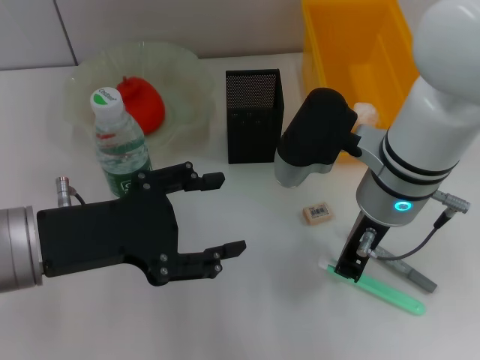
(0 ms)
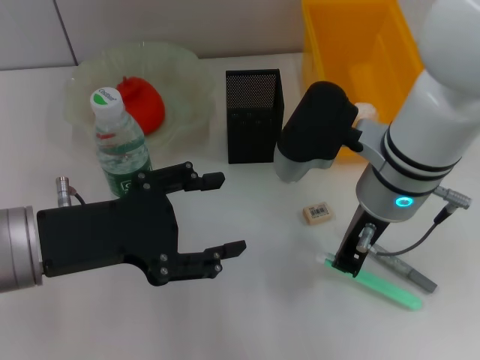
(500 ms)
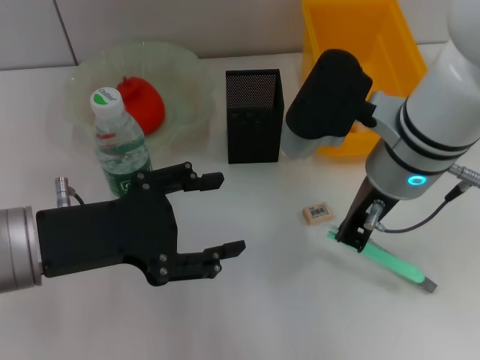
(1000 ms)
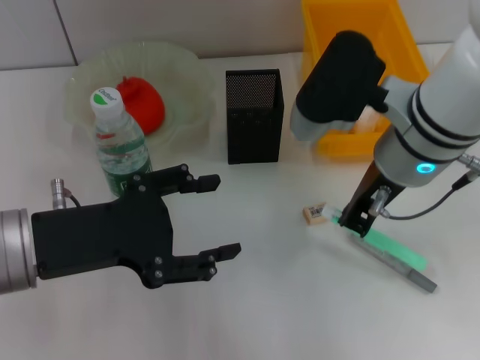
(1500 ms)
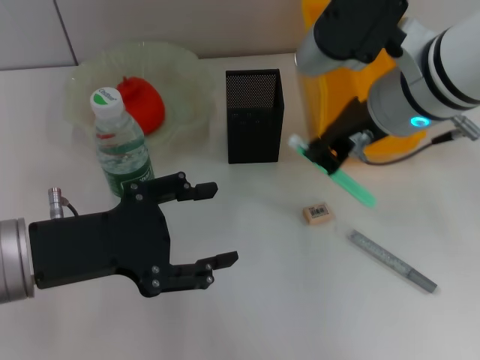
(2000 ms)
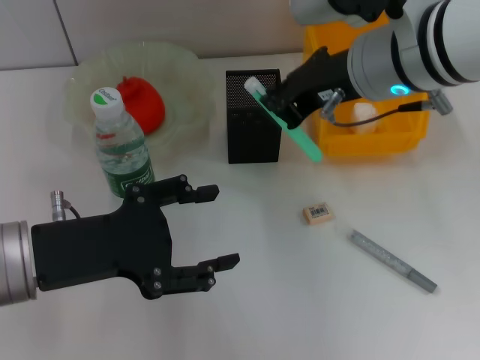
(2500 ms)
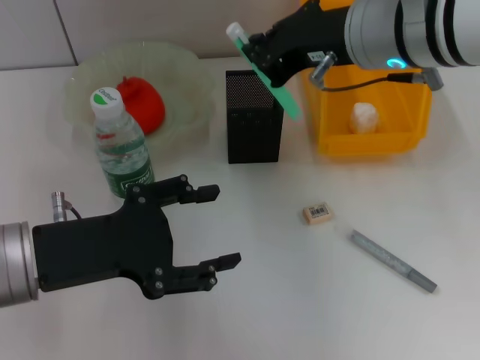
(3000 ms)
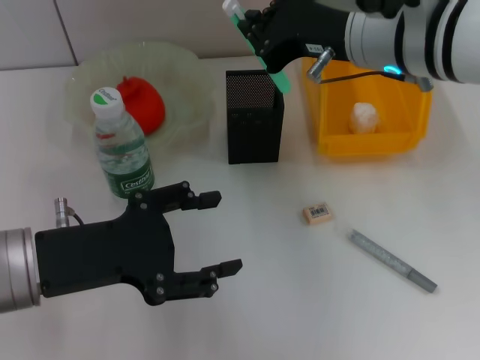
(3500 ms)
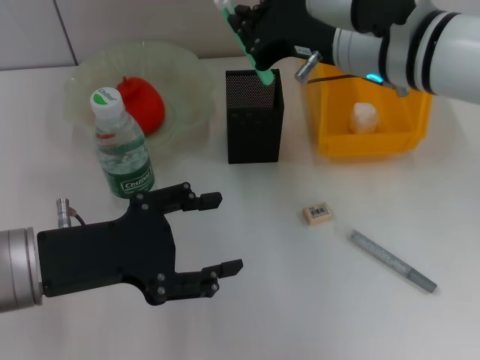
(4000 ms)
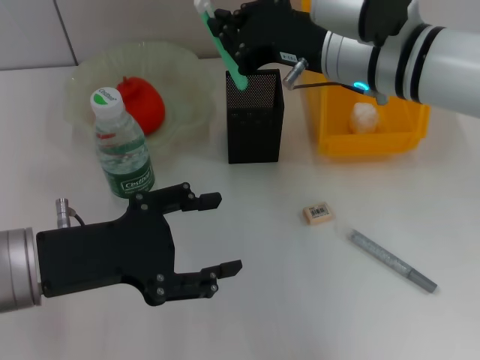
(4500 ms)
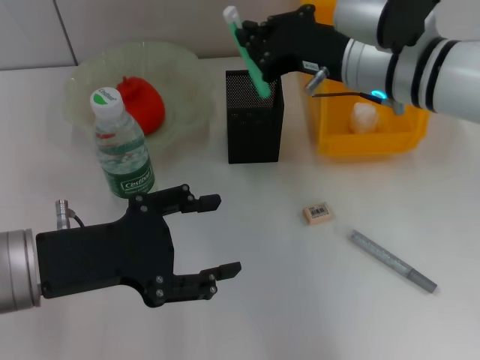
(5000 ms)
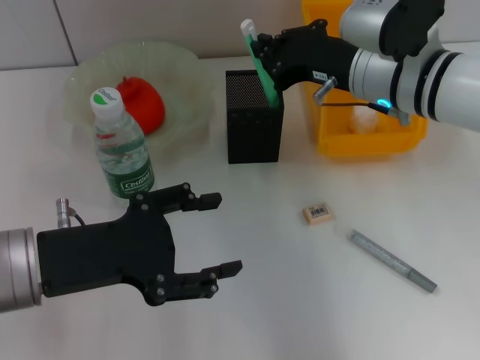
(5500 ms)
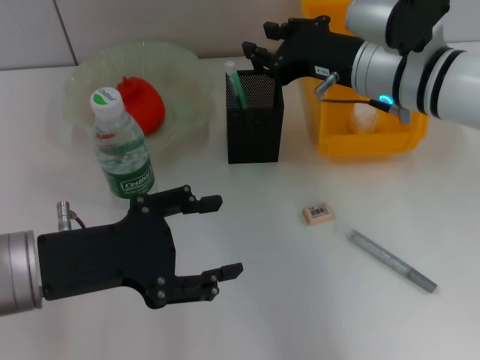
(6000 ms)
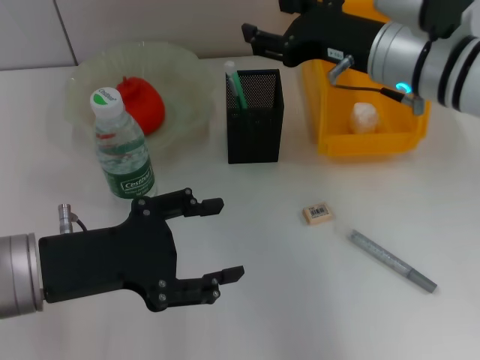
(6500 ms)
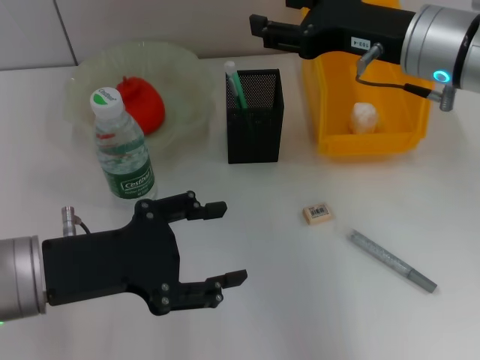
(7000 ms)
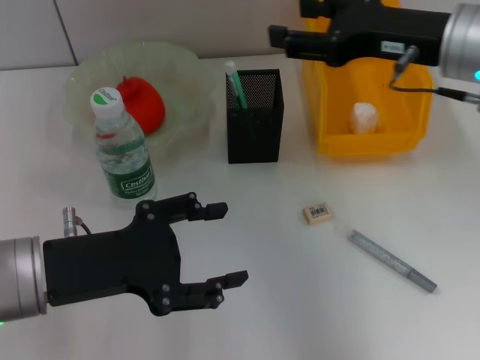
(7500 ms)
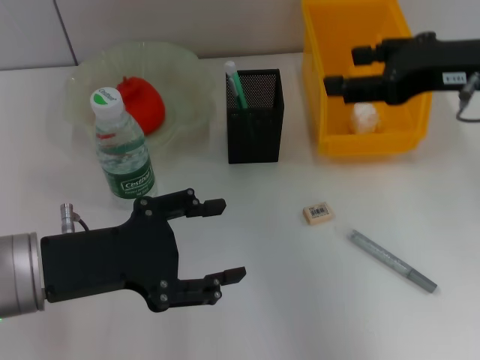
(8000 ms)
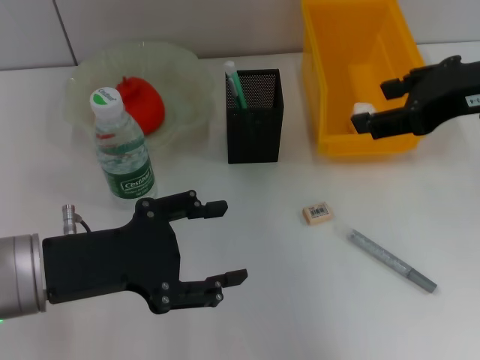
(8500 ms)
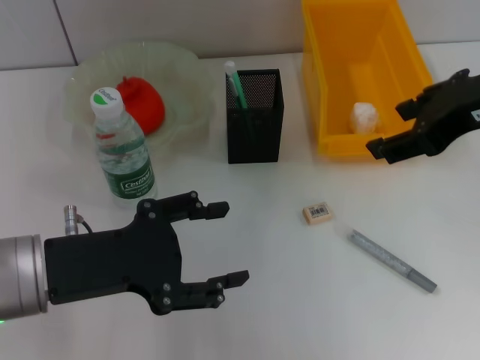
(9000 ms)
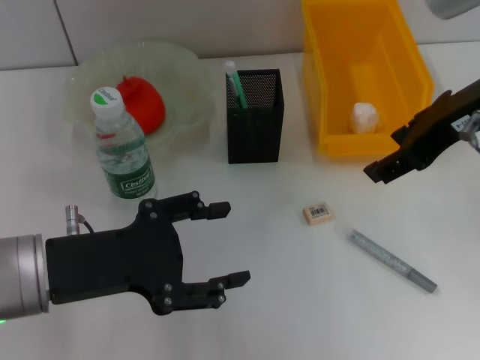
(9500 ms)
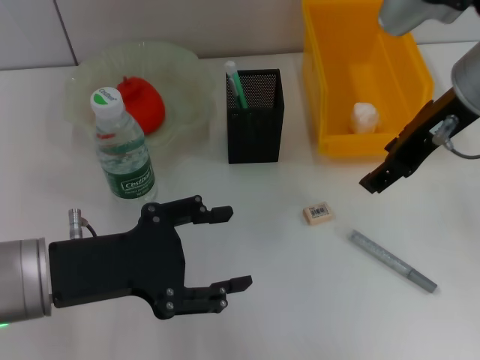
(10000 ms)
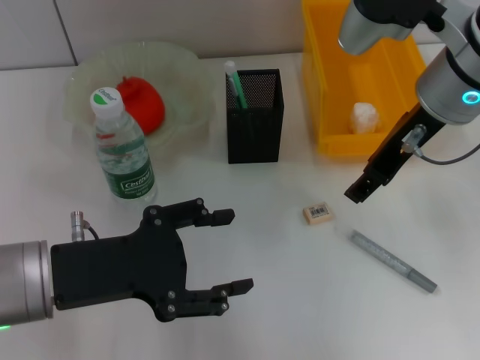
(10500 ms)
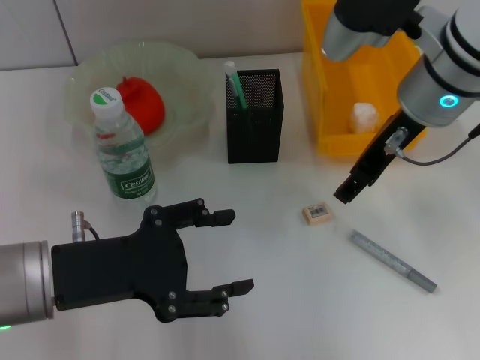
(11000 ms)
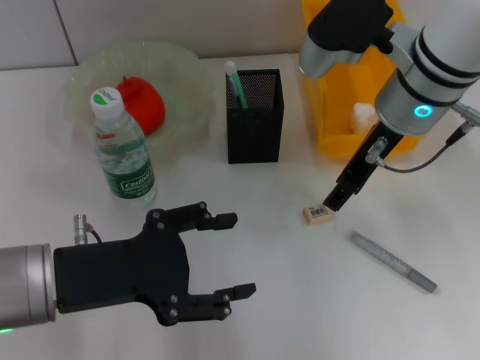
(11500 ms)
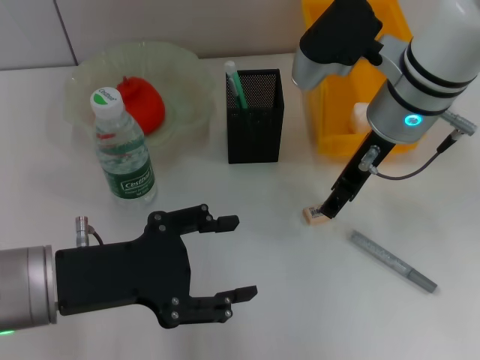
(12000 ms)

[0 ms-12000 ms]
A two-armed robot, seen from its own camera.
Step, 500 ms to 6500 ms: Place the blue utility knife into the pen holder with the right hand.
0 ms to 2000 ms: The right gripper goes about 5 cm upward.
4000 ms to 6000 ms: The right gripper changes place by approximately 5 cm.
6000 ms to 8000 ms: The right gripper is displaced to the right, upward and backward by about 15 cm, and opens.
8000 ms to 10000 ms: The right gripper travels to the left by roughly 5 cm.
10000 ms to 12000 ms: The right gripper shifts about 5 cm downward.

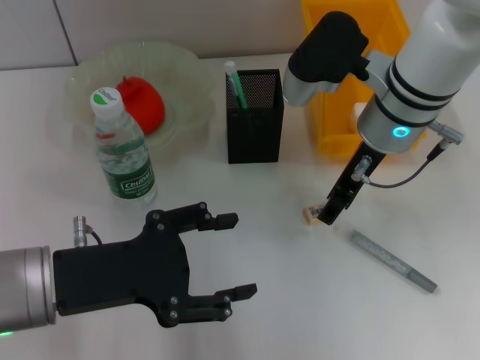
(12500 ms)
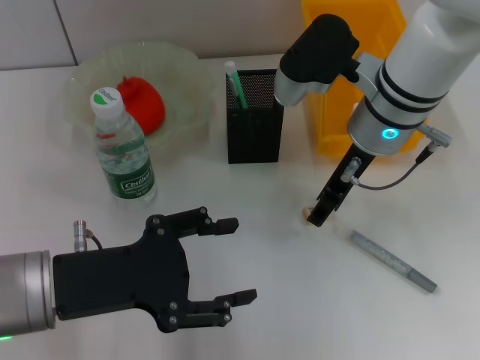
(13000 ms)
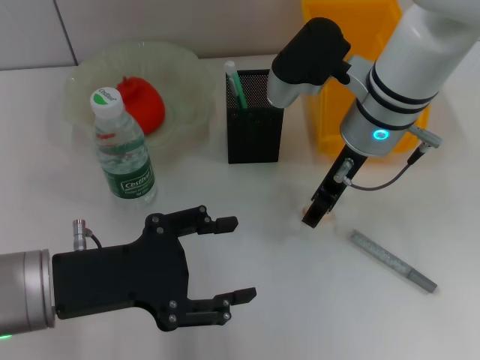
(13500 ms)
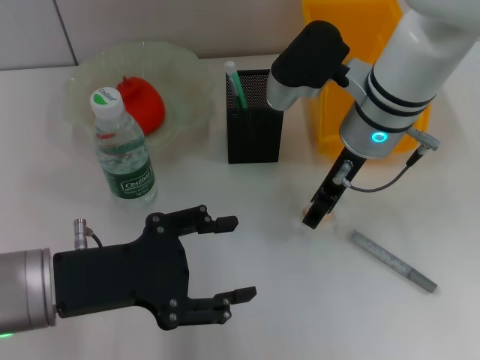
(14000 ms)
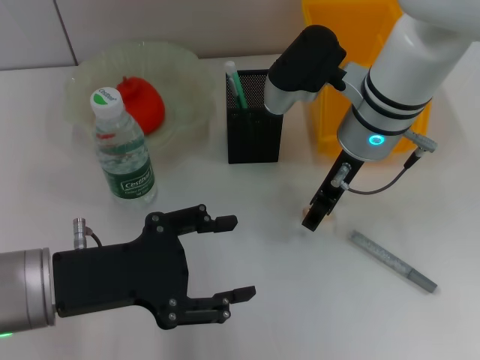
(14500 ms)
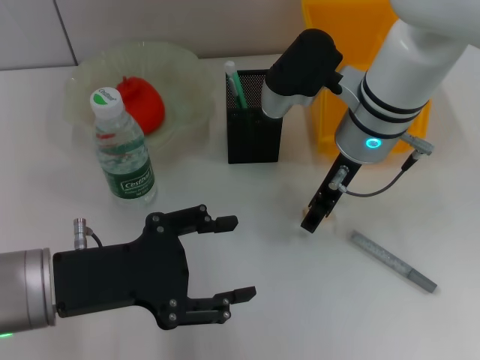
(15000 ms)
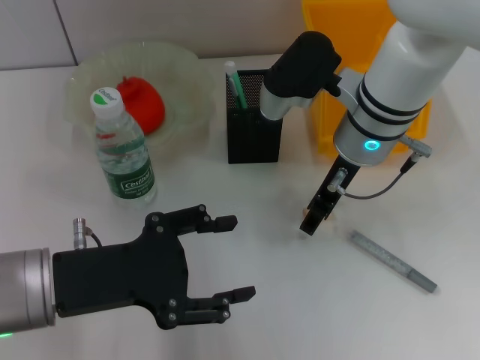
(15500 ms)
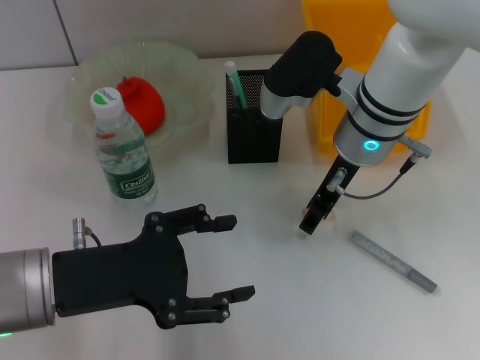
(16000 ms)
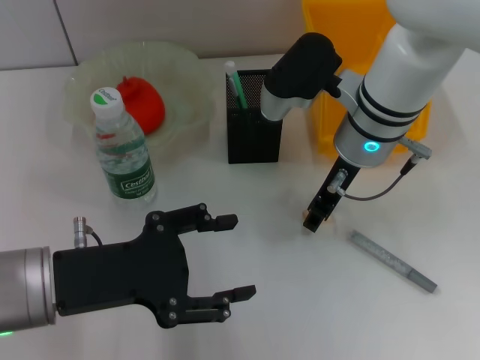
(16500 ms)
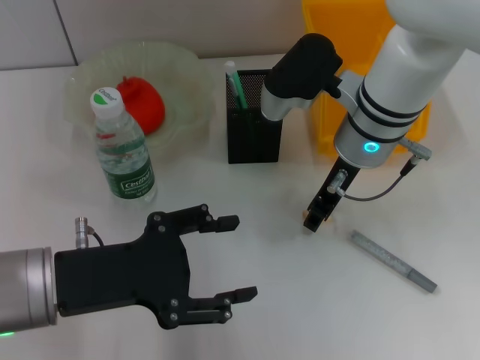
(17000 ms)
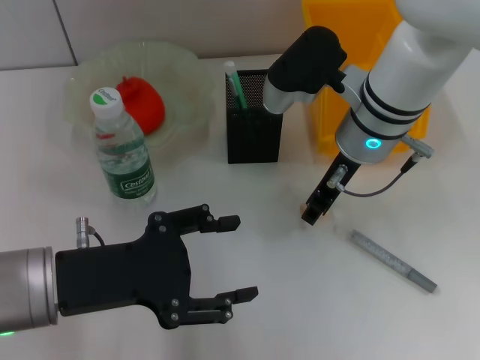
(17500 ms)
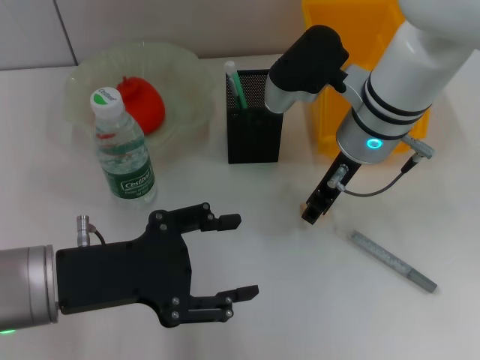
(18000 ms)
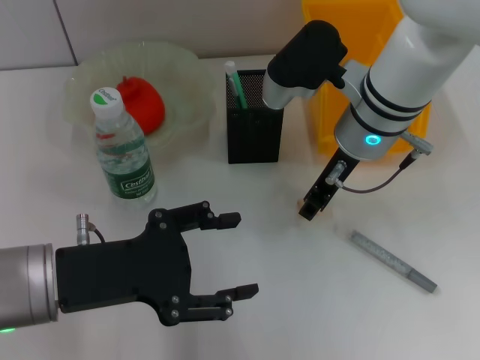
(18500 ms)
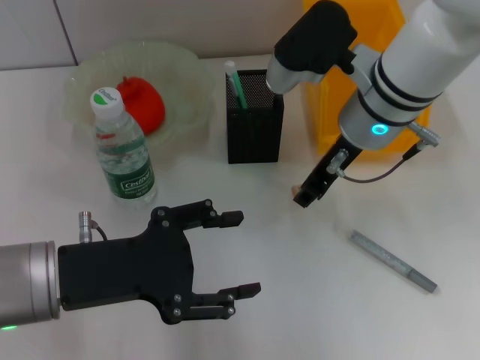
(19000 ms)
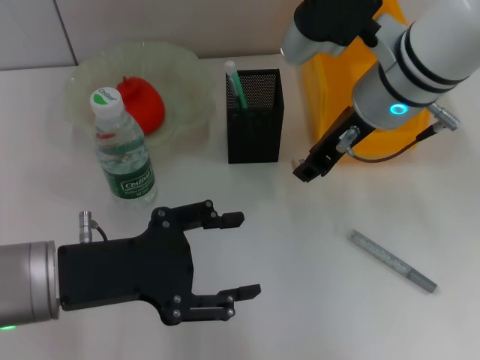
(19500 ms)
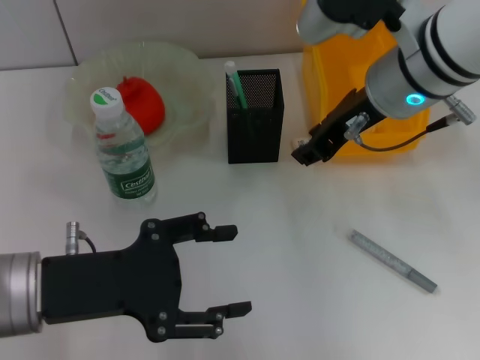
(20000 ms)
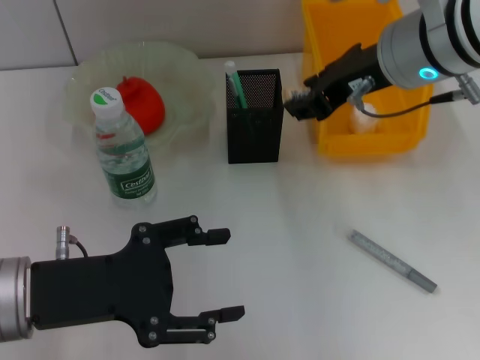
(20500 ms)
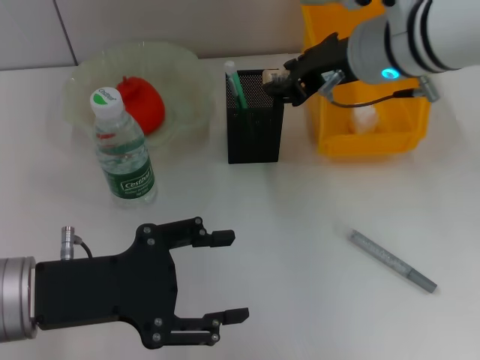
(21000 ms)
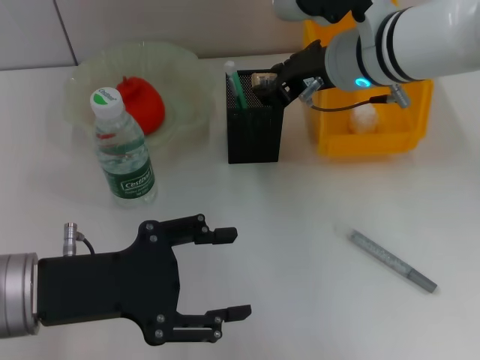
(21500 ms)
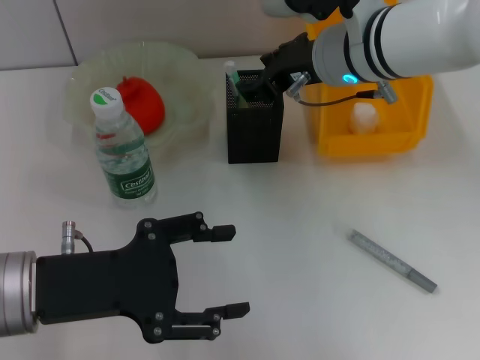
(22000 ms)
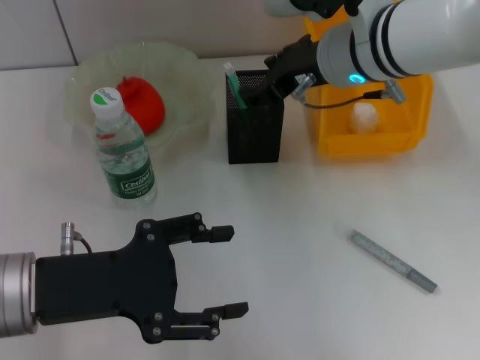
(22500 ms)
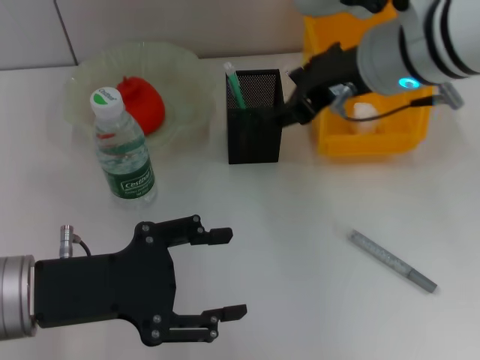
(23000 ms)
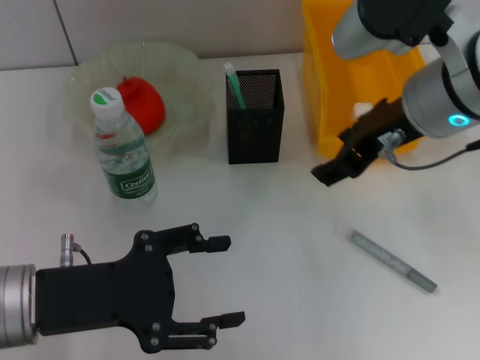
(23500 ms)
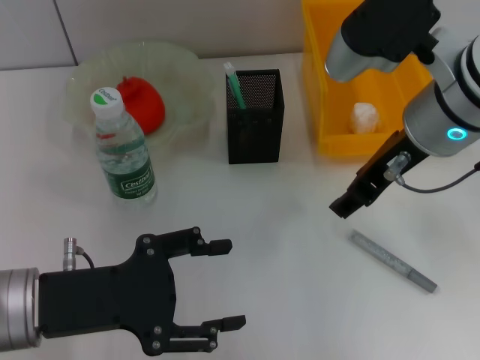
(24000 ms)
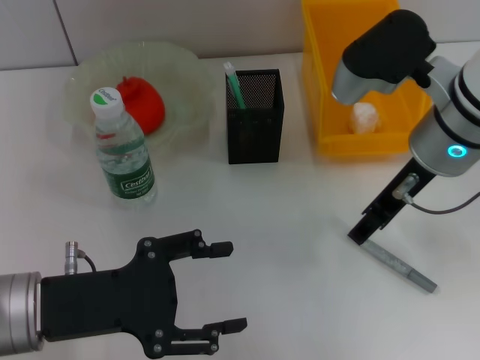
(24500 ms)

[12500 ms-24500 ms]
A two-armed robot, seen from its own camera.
Step, 12500 ms to 17500 ms: Grab the eraser with the right hand.
Step, 18000 ms to 22000 ms: Put the eraser into the pen holder with the right hand.
12500 ms to 14500 ms: The grippers move only a little.
14500 ms to 18500 ms: Both grippers stay put.
18500 ms to 20500 ms: The right gripper shifts roughly 10 cm upward.
20500 ms to 22500 ms: The right gripper ends up some 5 cm from where it was.
22500 ms to 24500 ms: The right gripper is displaced backward and to the right by some 10 cm.

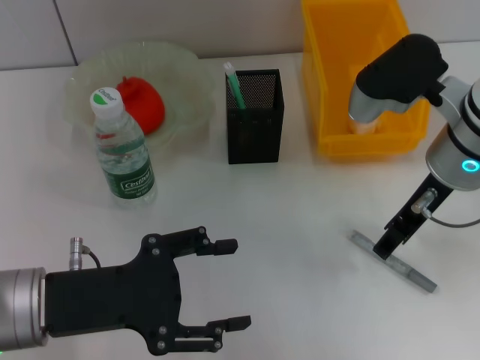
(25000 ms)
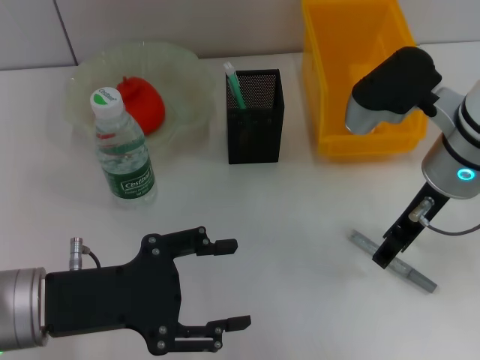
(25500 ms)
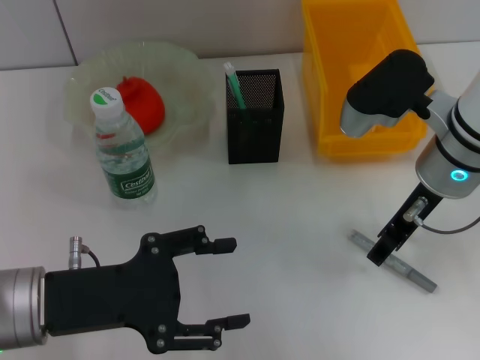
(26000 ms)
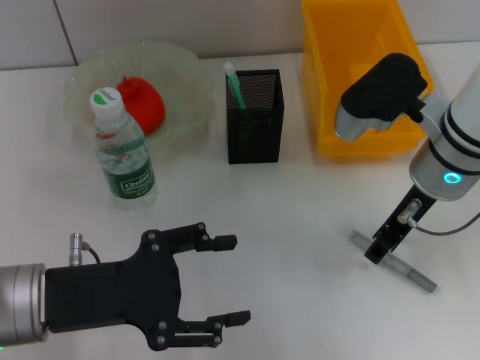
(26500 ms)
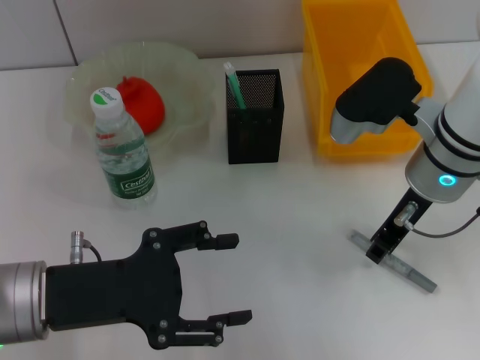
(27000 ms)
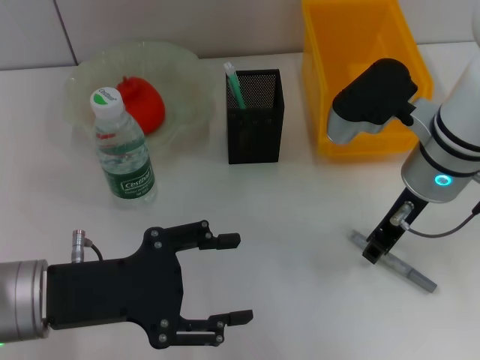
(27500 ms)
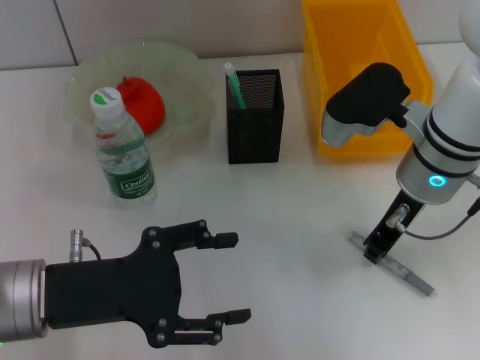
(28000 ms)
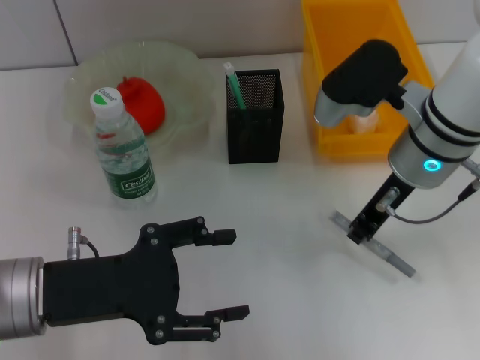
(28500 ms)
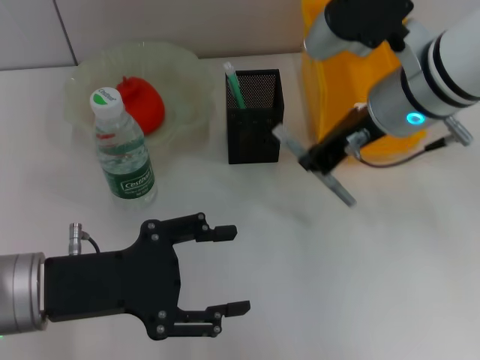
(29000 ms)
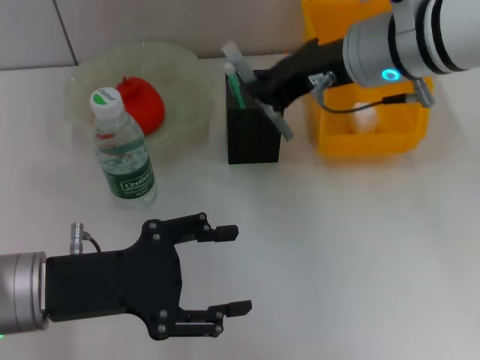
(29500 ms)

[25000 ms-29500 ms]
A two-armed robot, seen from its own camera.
Step, 25000 ms to 27500 ms: Grab the gray glue with the right hand.
25000 ms to 27000 ms: The grippers make only small movements.
27000 ms to 29500 ms: The right gripper heads upward, covering roughly 10 cm, and closes up.
